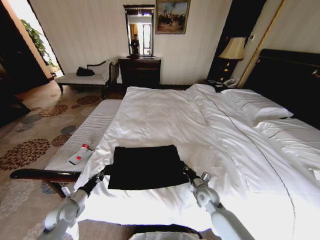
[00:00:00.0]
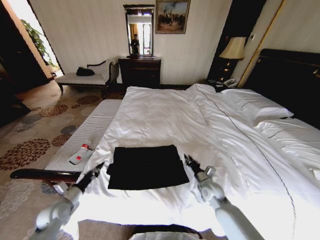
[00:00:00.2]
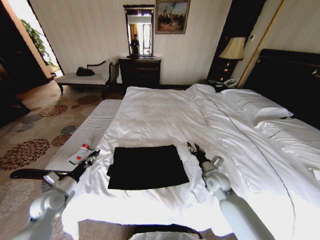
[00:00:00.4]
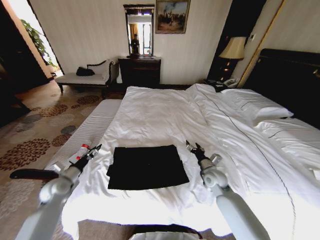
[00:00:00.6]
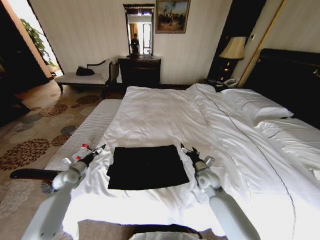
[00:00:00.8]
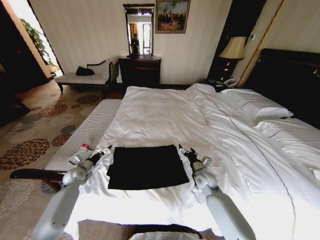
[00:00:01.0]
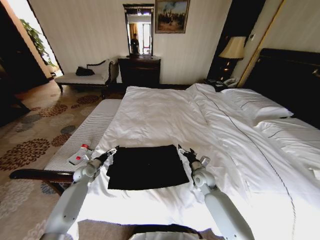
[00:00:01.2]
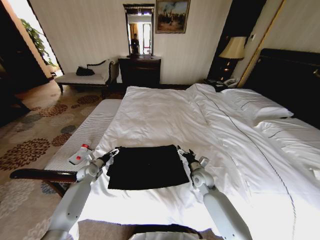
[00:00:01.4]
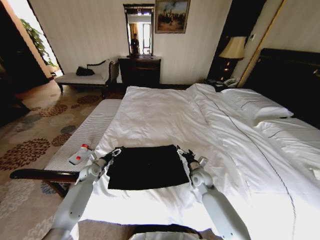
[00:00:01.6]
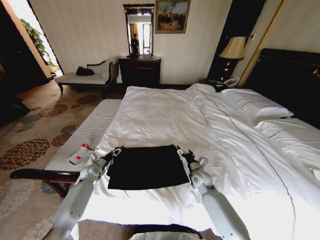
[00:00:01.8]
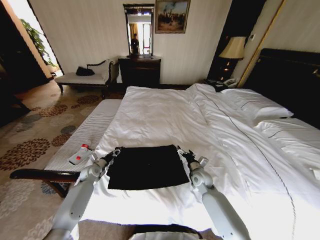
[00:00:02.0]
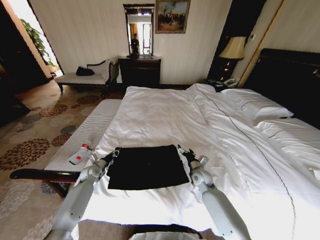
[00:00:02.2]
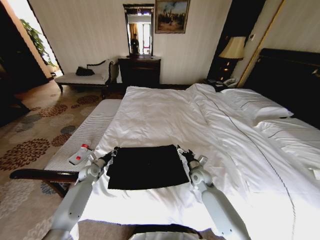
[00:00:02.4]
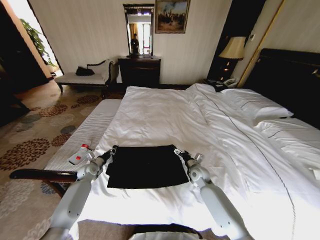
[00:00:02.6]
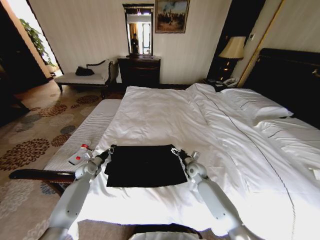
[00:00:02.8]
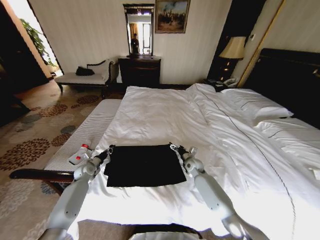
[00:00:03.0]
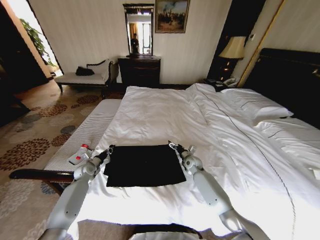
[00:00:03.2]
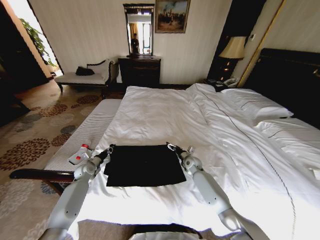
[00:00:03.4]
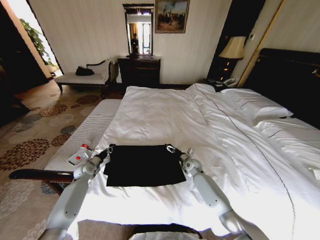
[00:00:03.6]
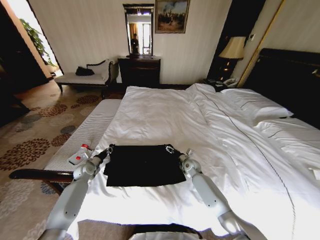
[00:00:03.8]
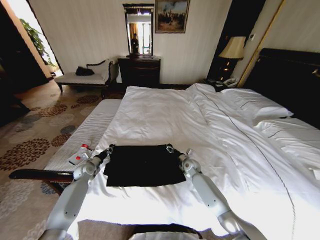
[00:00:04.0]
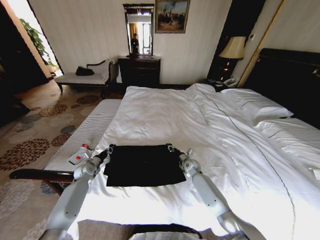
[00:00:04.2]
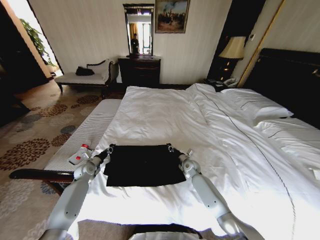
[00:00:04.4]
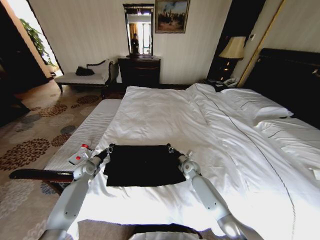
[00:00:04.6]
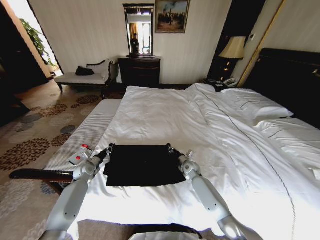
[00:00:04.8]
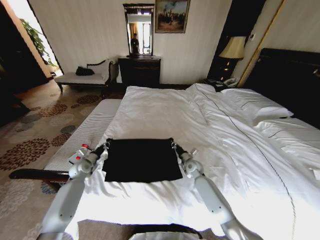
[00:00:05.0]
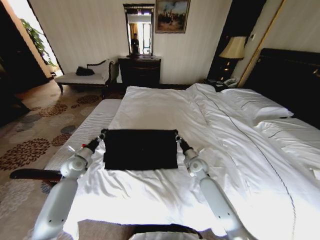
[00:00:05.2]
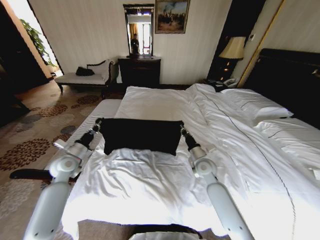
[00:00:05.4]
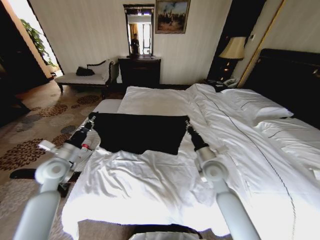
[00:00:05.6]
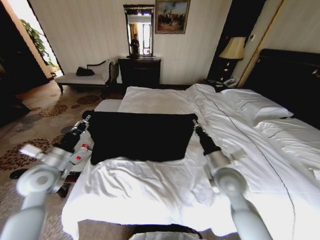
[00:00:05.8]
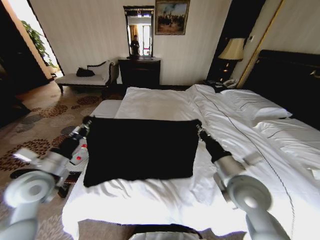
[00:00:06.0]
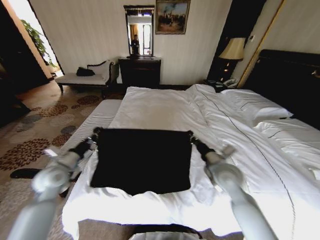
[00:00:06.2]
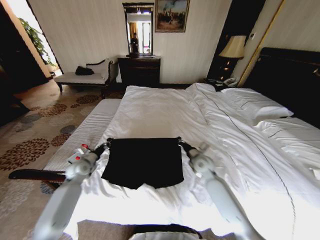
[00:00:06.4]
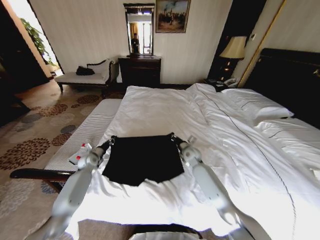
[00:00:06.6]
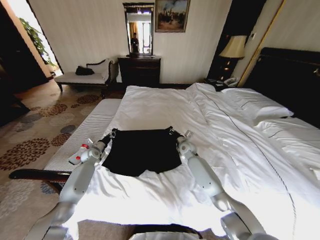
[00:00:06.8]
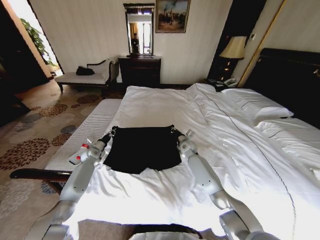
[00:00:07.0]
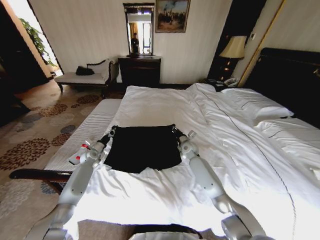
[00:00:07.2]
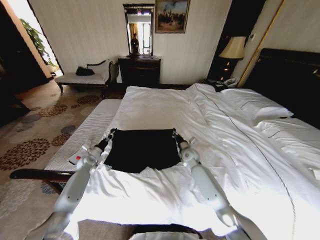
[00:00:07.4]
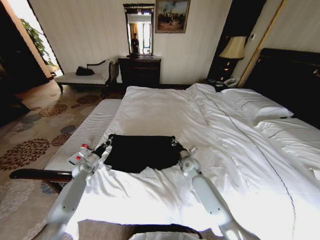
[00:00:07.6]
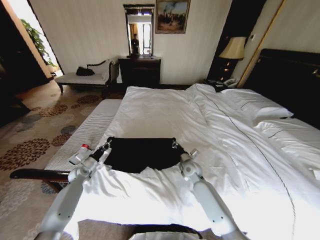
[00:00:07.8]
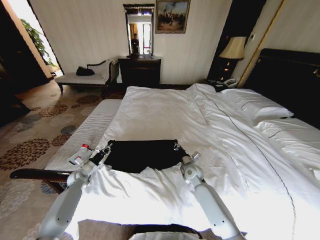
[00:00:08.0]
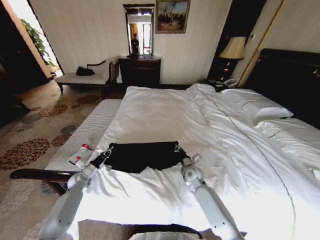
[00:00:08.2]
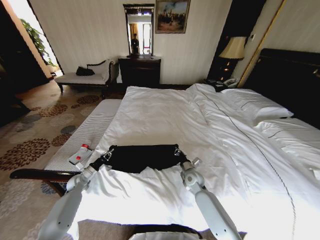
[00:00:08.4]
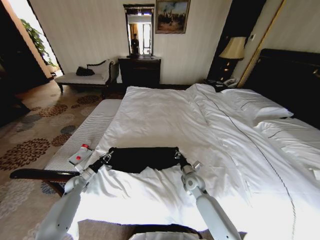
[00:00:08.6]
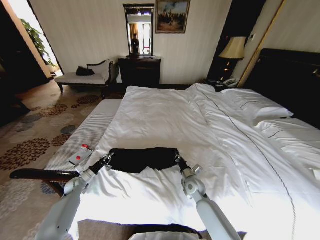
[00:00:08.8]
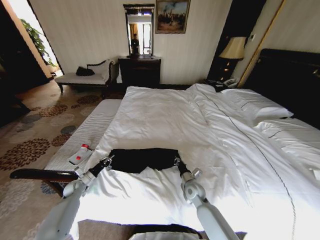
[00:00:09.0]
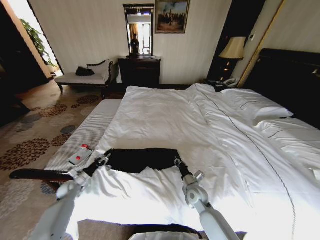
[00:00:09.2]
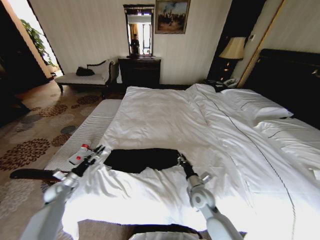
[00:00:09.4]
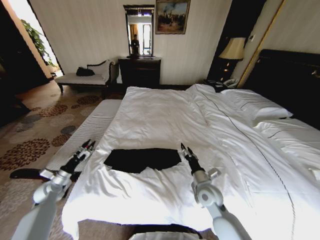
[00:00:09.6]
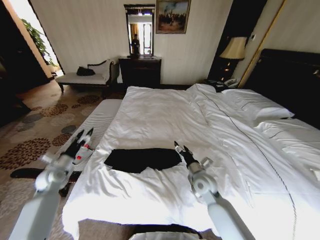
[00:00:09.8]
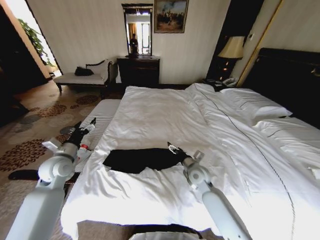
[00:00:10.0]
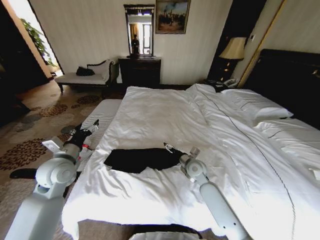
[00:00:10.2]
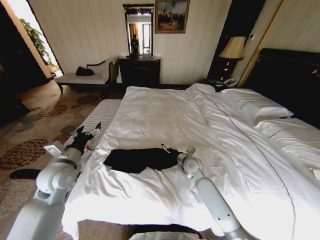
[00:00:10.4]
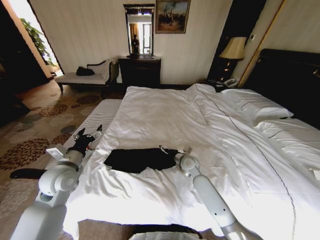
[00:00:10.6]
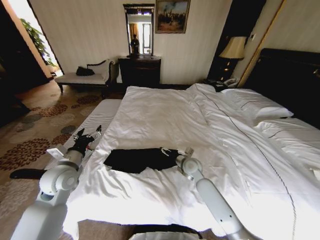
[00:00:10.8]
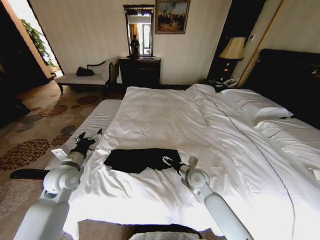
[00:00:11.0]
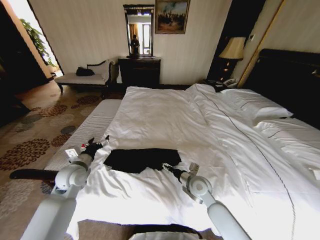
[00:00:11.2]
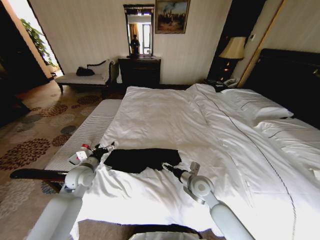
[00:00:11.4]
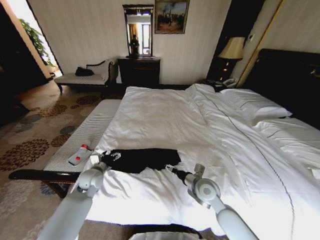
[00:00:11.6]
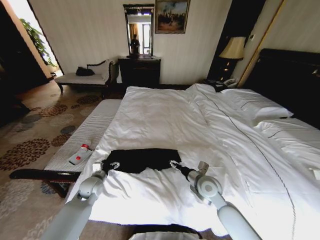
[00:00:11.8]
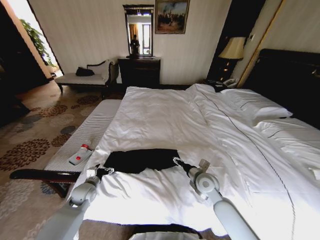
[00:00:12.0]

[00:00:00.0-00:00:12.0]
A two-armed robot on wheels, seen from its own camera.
Task of the whole recording: Fold the clothes on the bed.
00:00:00.0 to 00:00:01.6: The left gripper goes about 20 cm forward, and opens; the right gripper is displaced forward by about 5 cm, and opens its fingers.
00:00:01.6 to 00:00:03.0: The right gripper travels forward by some 10 cm. The left gripper closes up.
00:00:03.0 to 00:00:04.4: The right gripper closes.
00:00:04.4 to 00:00:06.0: The grippers both shift upward and backward by approximately 35 cm.
00:00:06.0 to 00:00:07.6: Both grippers travel together downward and forward, some 30 cm.
00:00:07.6 to 00:00:09.0: The grippers both shift backward and downward by about 10 cm.
00:00:09.0 to 00:00:10.4: The right gripper shifts about 15 cm upward and forward, and opens. The left gripper heads upward, covering some 25 cm, and opens its fingers.
00:00:10.4 to 00:00:12.0: The right gripper heads backward, covering about 10 cm; the left gripper travels downward by some 20 cm.

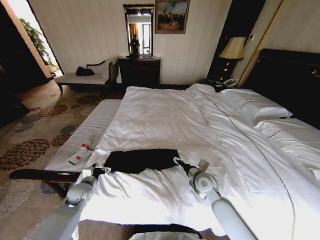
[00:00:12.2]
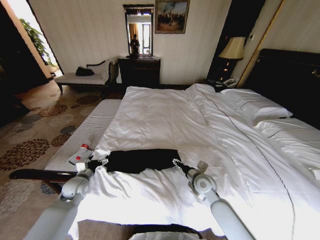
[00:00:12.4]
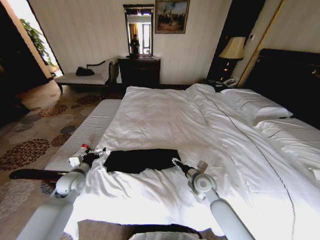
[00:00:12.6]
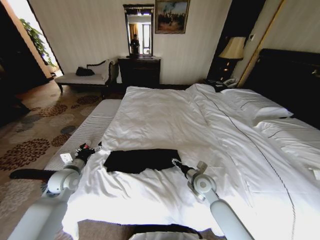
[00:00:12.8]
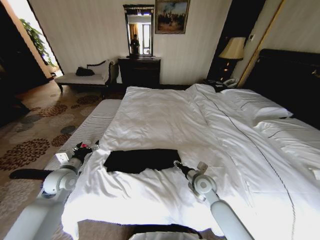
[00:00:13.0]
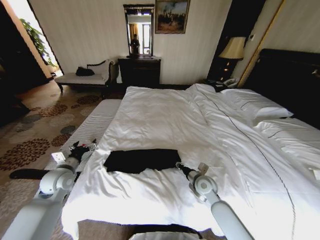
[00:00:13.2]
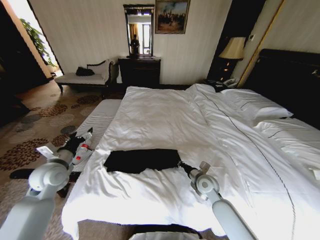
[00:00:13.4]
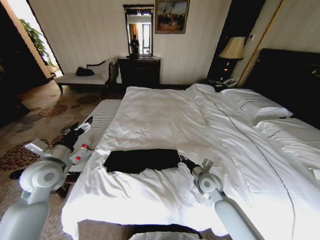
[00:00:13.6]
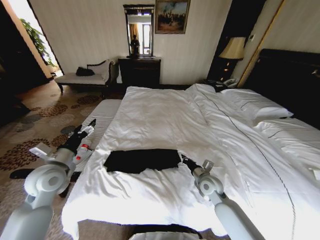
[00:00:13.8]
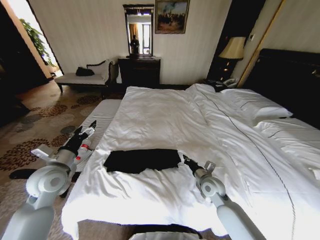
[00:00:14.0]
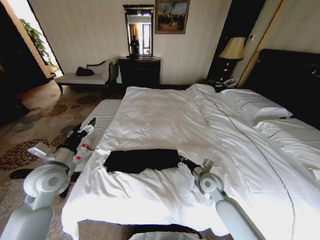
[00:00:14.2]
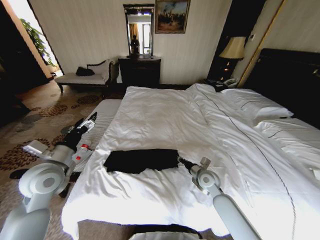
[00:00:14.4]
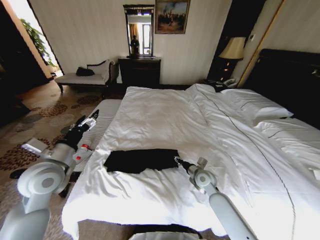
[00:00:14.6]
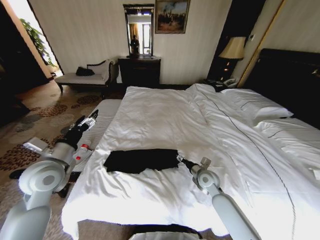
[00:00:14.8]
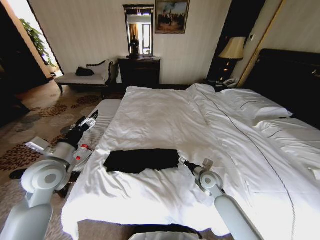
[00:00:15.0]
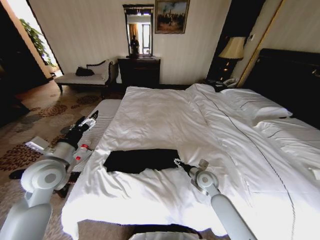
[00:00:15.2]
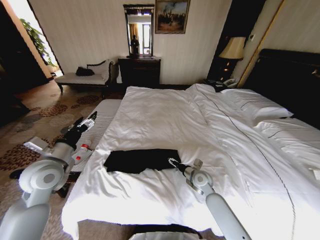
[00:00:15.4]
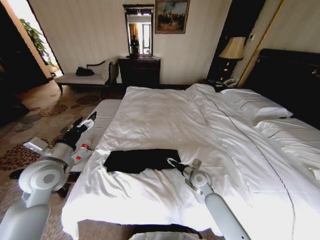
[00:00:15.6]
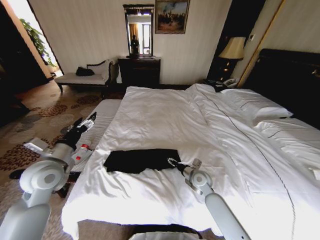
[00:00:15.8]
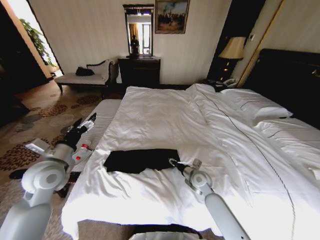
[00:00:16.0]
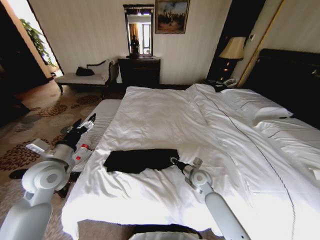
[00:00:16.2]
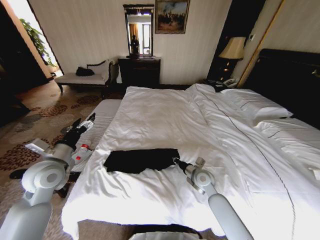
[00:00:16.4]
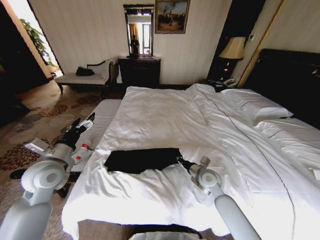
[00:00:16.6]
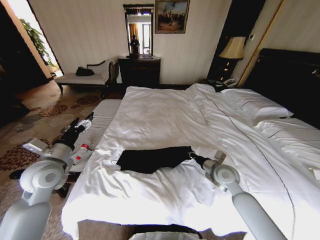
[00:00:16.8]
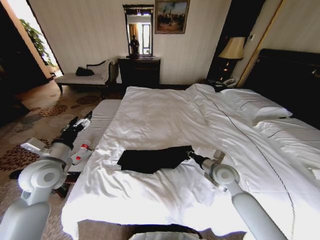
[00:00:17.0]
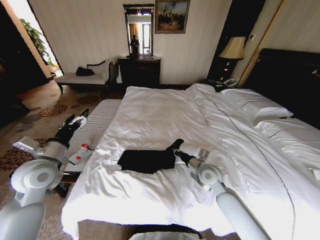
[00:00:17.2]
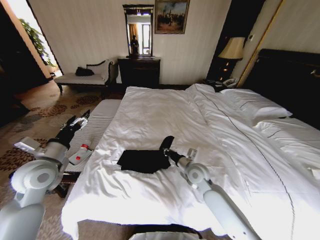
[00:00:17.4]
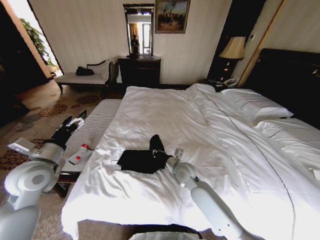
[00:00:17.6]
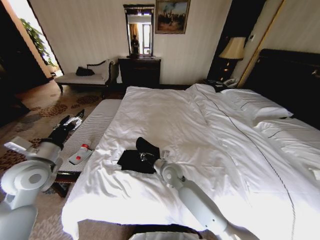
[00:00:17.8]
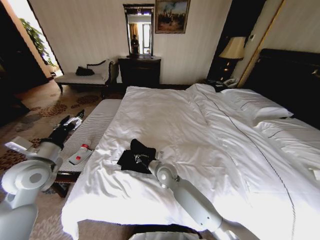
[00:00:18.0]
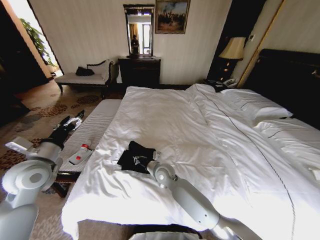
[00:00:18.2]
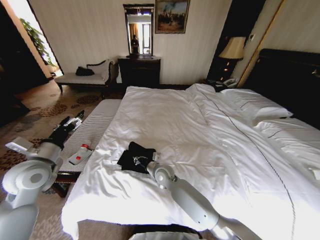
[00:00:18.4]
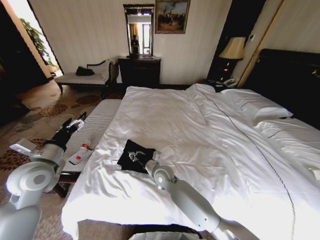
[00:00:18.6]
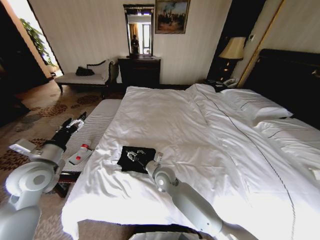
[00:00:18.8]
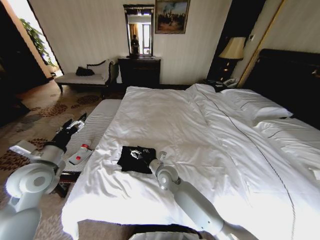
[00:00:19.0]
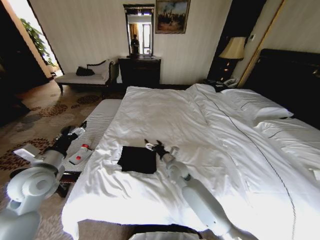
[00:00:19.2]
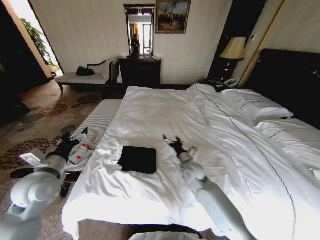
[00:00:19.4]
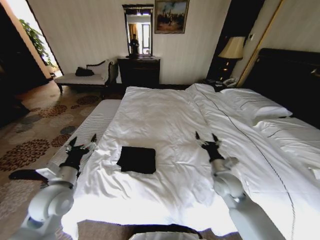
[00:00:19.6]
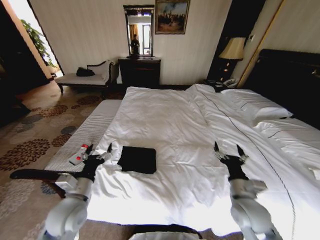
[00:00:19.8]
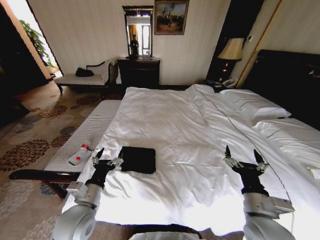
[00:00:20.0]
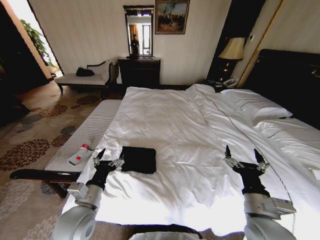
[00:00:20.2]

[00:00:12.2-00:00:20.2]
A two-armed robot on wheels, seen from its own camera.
Task of the whole recording: Fold the clothes on the bed.
00:00:12.2 to 00:00:13.8: The right gripper closes up. The left gripper moves upward, roughly 20 cm.
00:00:13.8 to 00:00:15.4: The right gripper opens.
00:00:15.4 to 00:00:17.0: The right gripper is displaced upward and to the right by some 10 cm, and closes.
00:00:17.0 to 00:00:18.6: The right gripper moves to the left, approximately 25 cm.
00:00:18.6 to 00:00:20.2: The left gripper moves to the right, backward and downward, about 20 cm. Meanwhile the right gripper shifts about 35 cm to the right and backward, and opens its fingers.
